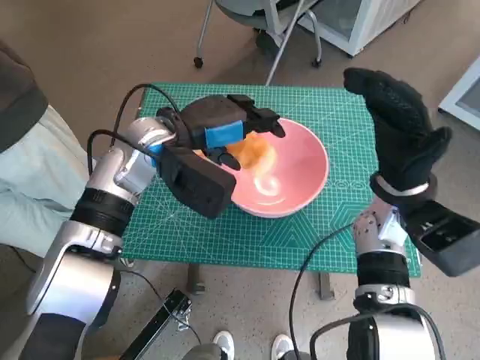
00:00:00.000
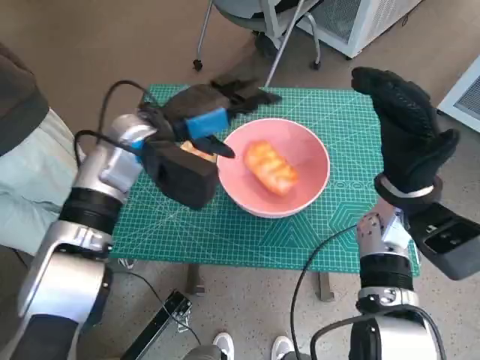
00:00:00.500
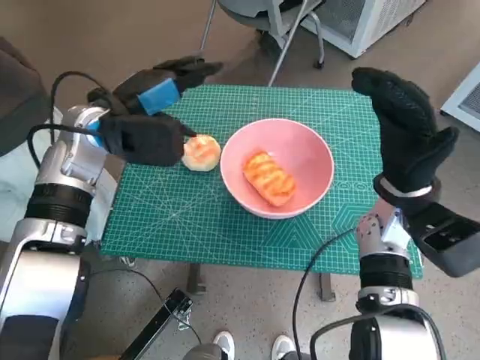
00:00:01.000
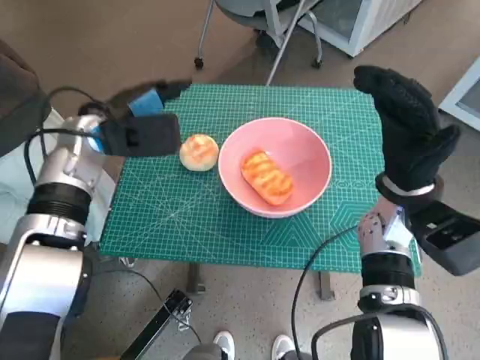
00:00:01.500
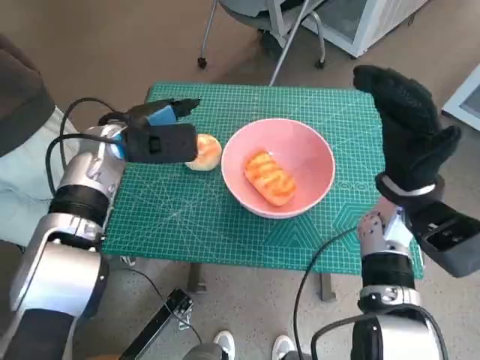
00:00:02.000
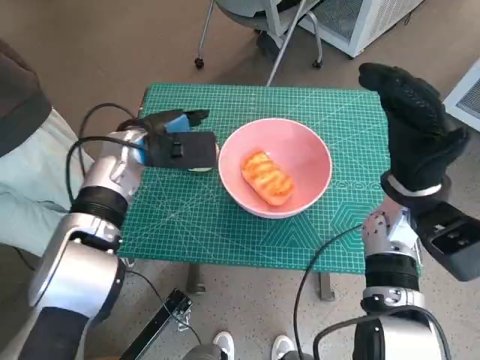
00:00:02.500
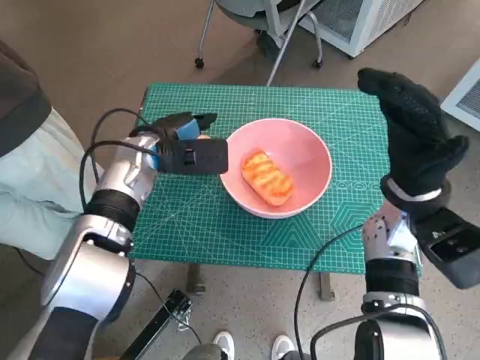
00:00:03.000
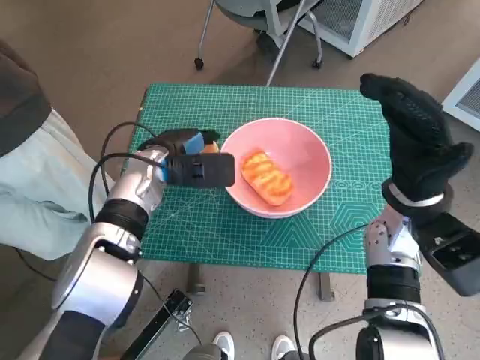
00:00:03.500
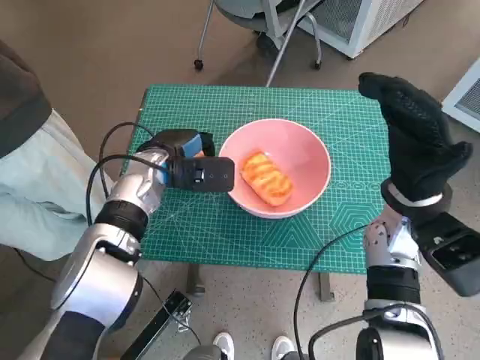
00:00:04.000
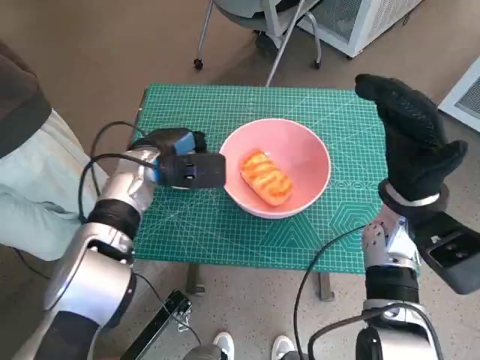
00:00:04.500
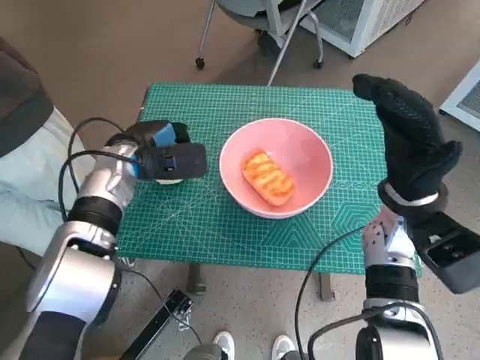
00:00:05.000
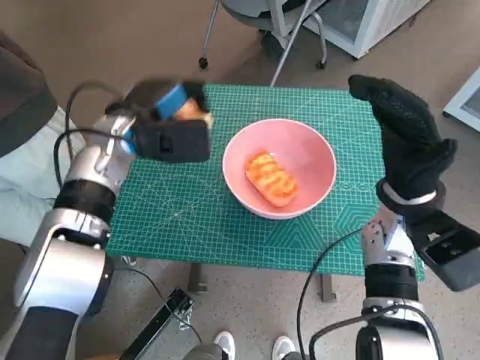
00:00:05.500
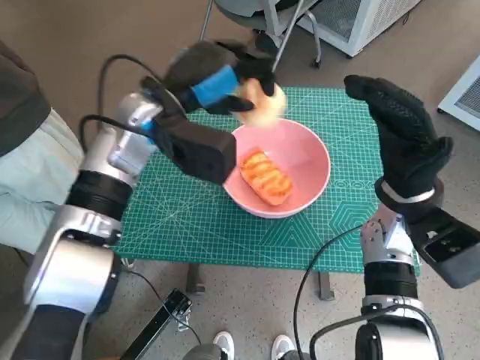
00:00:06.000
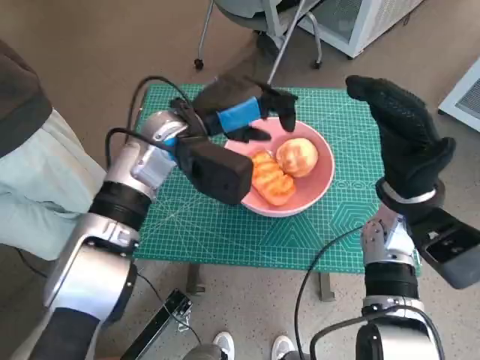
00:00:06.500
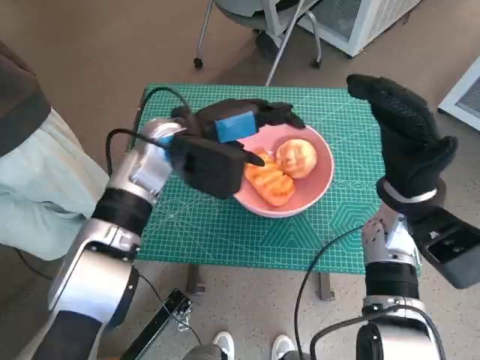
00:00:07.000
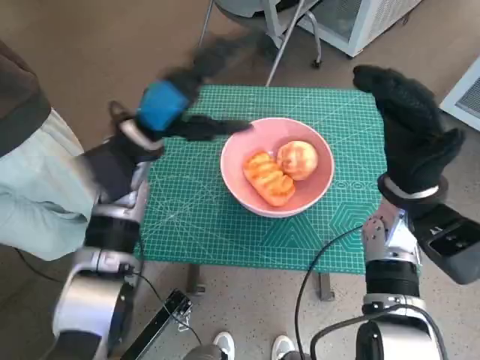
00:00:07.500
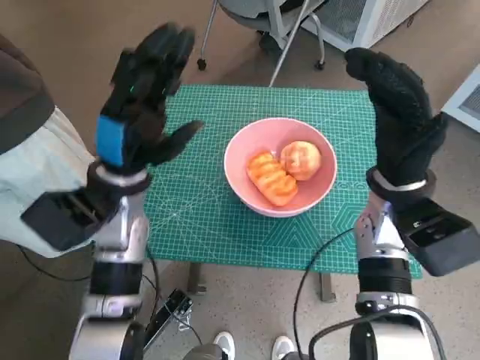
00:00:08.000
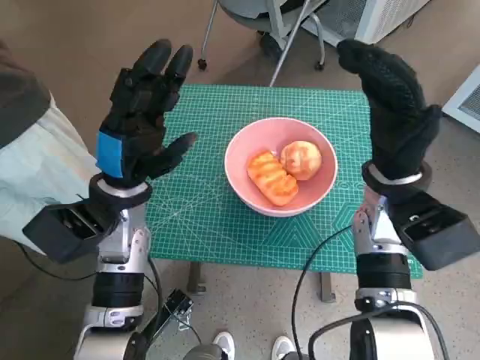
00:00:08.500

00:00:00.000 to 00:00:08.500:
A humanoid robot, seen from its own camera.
Task of the whole recording: Push the bowl to the center of the table and put the bread into the bowl.
Step, 00:00:00.500 to 00:00:04.000: Grasp the round bread with left hand.
Step, 00:00:04.500 to 00:00:06.000: Place the round bread in pink bowl with left hand.
00:00:00.000 to 00:00:02.000: The left hand moves to the left, roughly 5 cm.
00:00:02.000 to 00:00:04.000: The left hand shifts roughly 5 cm downward.
00:00:04.000 to 00:00:06.500: The left hand goes about 10 cm upward and to the right.
00:00:06.500 to 00:00:08.500: The left hand travels to the left, backward and downward by about 10 cm.

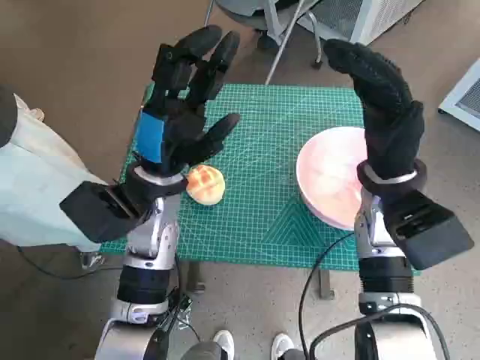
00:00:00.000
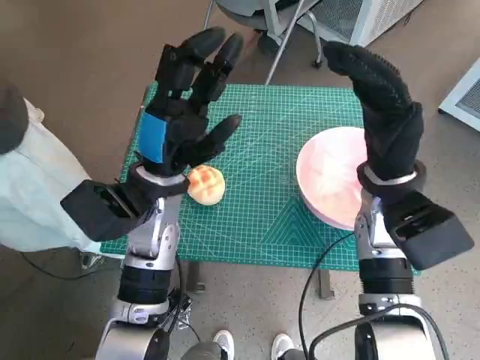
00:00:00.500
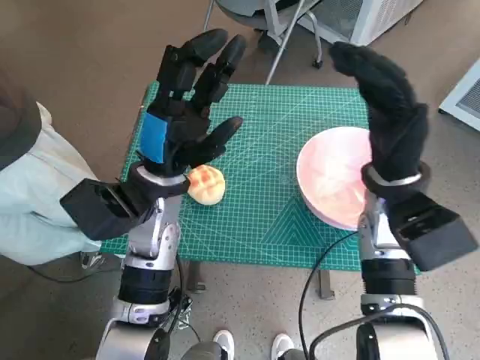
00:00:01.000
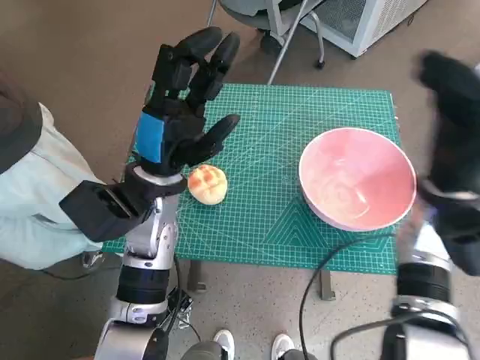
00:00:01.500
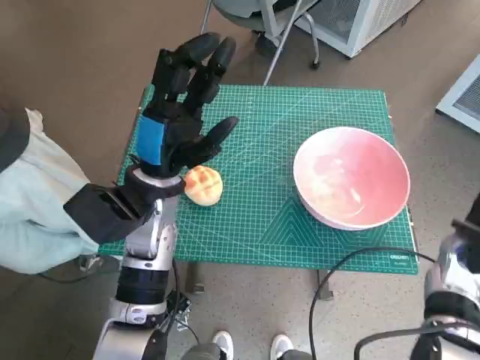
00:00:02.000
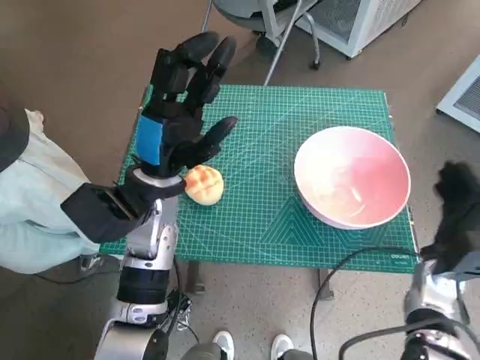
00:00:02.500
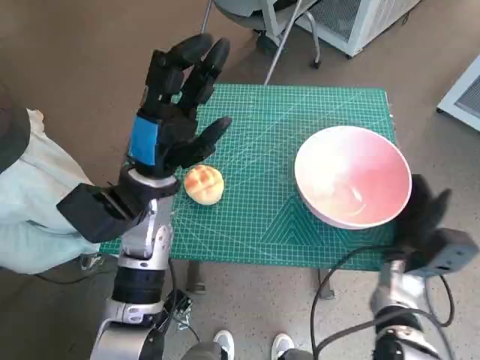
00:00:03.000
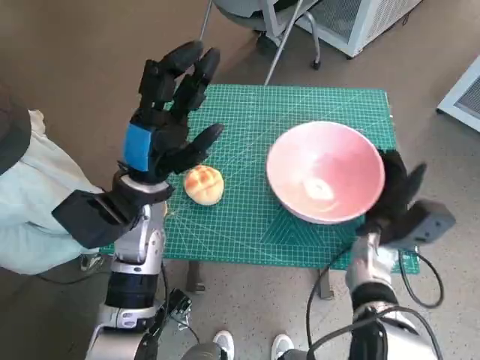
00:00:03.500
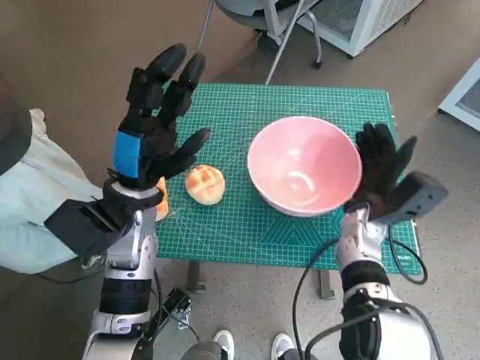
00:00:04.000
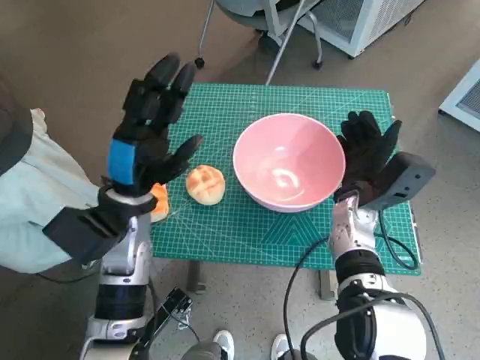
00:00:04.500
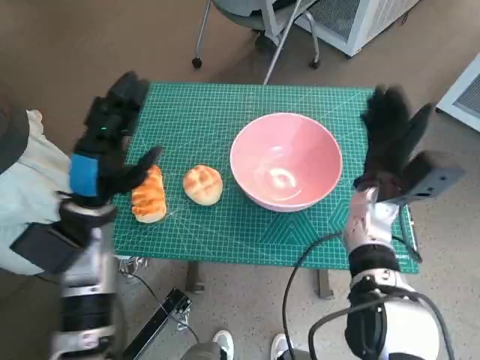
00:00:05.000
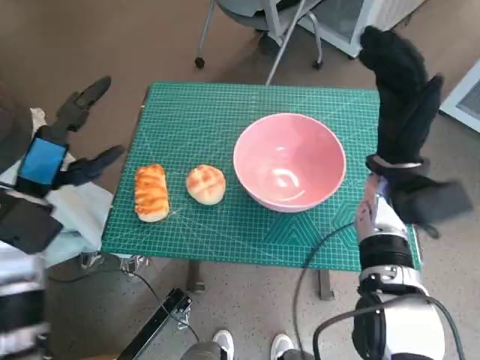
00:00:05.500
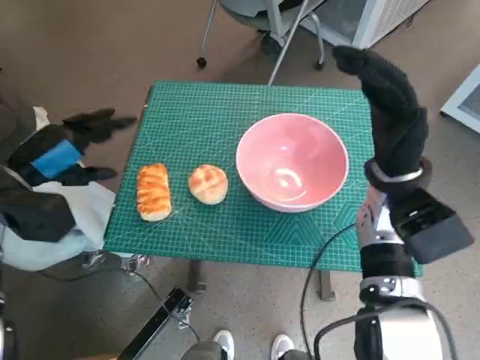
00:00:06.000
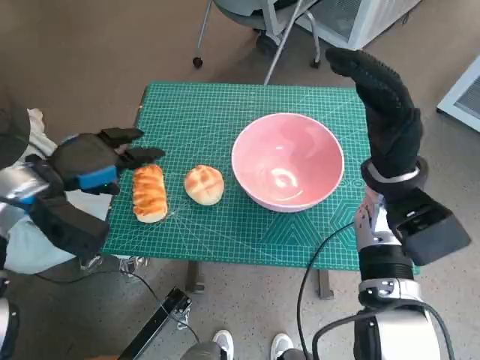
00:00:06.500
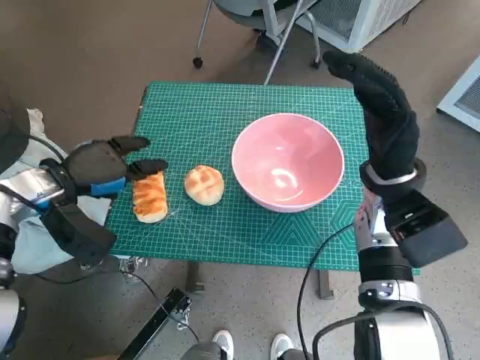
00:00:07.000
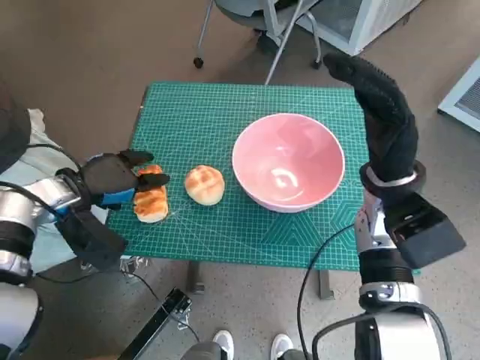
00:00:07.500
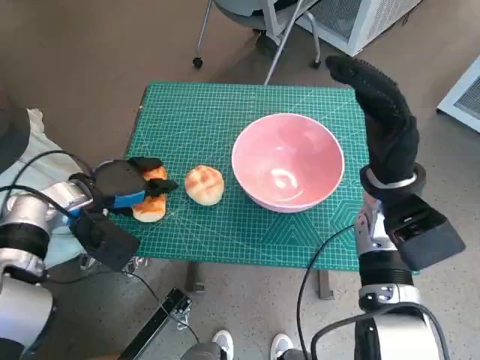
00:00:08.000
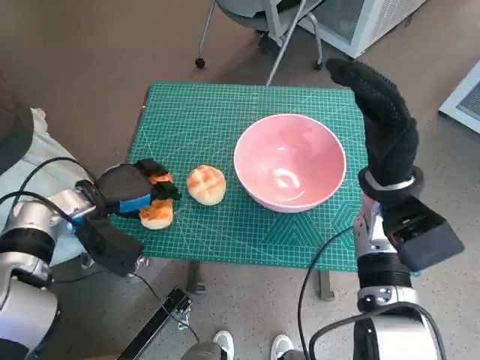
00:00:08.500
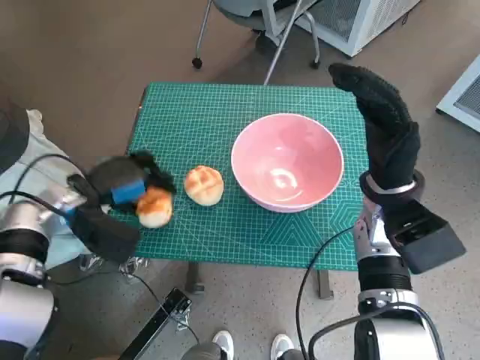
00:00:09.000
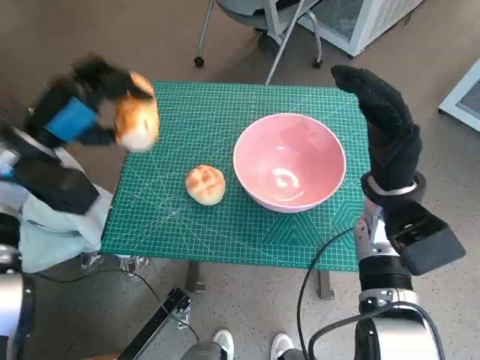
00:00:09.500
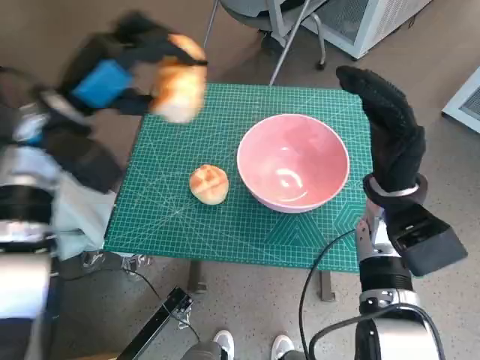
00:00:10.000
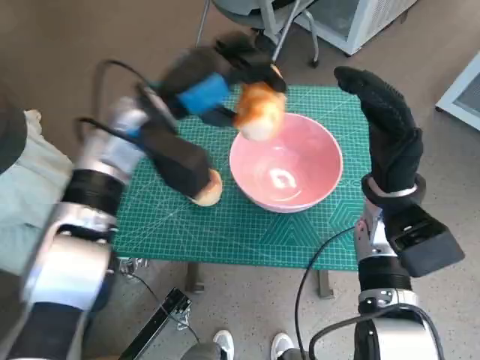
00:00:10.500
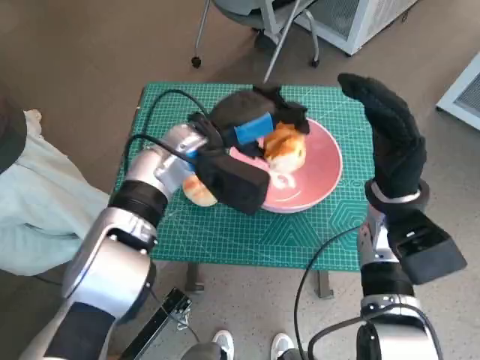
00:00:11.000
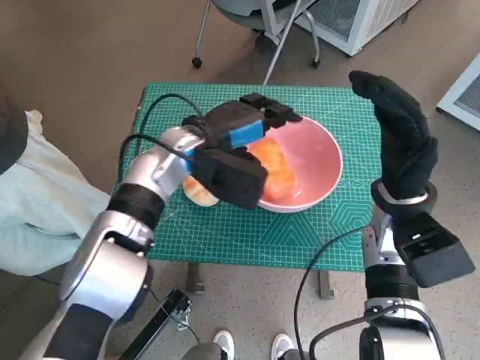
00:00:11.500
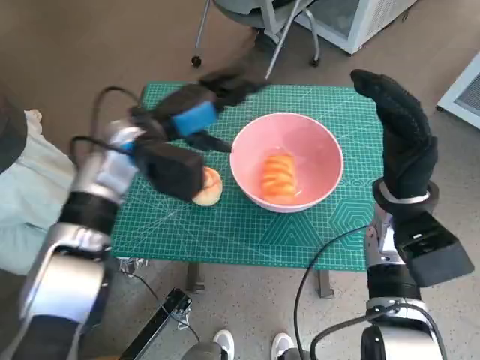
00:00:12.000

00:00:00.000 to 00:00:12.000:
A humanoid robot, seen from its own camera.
Task of the whole recording: Push the bowl to the center of the table and put the bread into the bowl.
Step, 00:00:00.000 to 00:00:04.500: Move the pink bowl to the center of table with right hand.
Step, 00:00:05.000 to 00:00:08.500: Grasp the long bread with left hand.
Step, 00:00:09.000 to 00:00:11.000: Place the long bread in pink bowl with left hand.
00:00:02.000 to 00:00:04.000: The right hand is displaced to the left by some 10 cm.
00:00:04.000 to 00:00:06.000: The left hand is displaced to the left by approximately 15 cm, while the right hand shifts about 10 cm upward.
00:00:06.000 to 00:00:08.000: The left hand goes about 5 cm downward.
00:00:08.000 to 00:00:10.000: The left hand travels upward by roughly 10 cm.
00:00:10.000 to 00:00:12.000: The left hand shifts some 10 cm to the right.

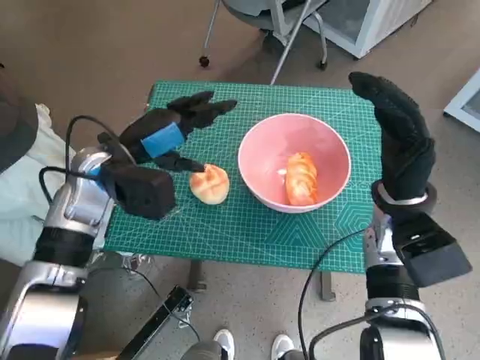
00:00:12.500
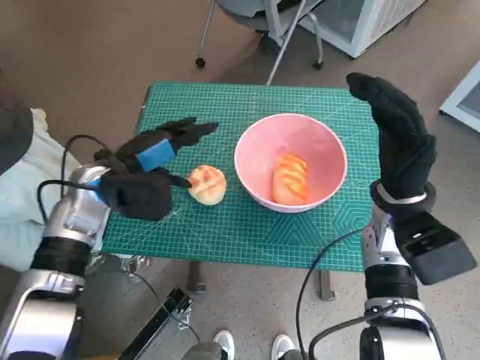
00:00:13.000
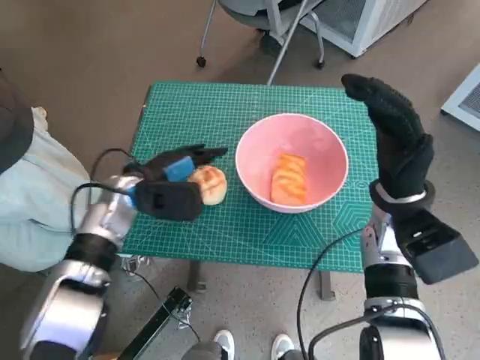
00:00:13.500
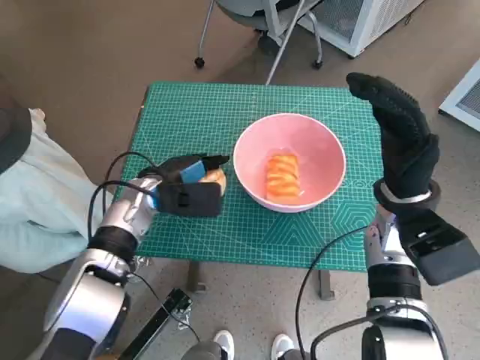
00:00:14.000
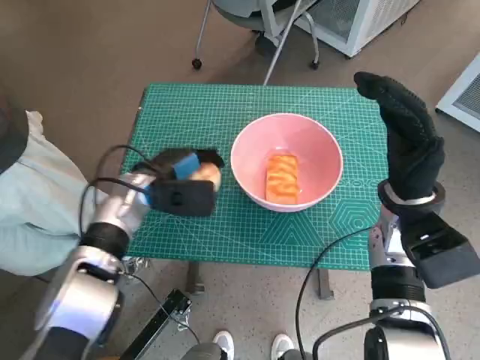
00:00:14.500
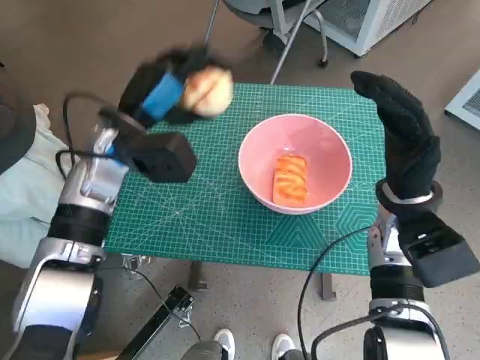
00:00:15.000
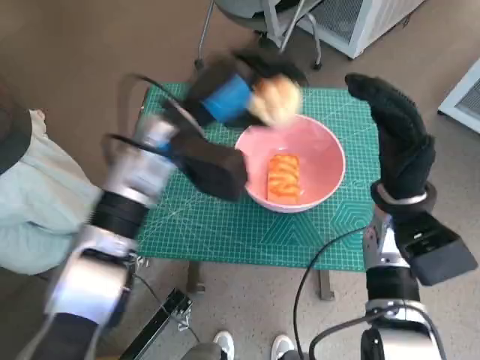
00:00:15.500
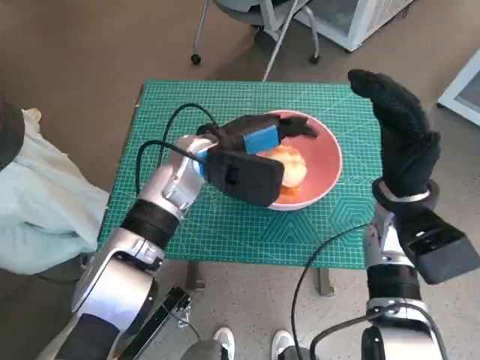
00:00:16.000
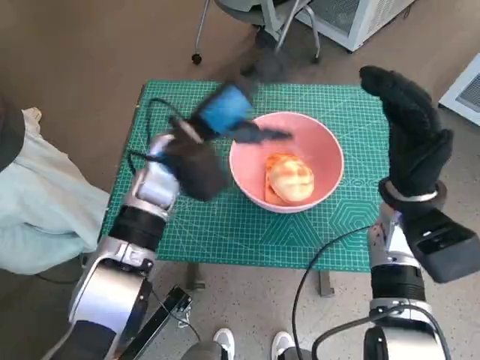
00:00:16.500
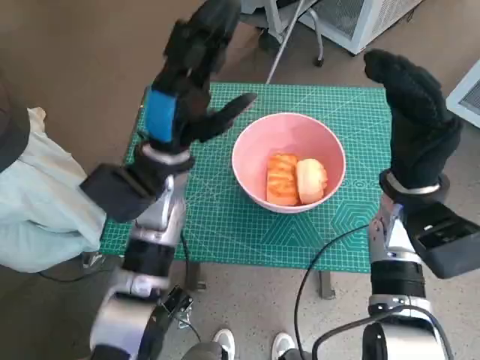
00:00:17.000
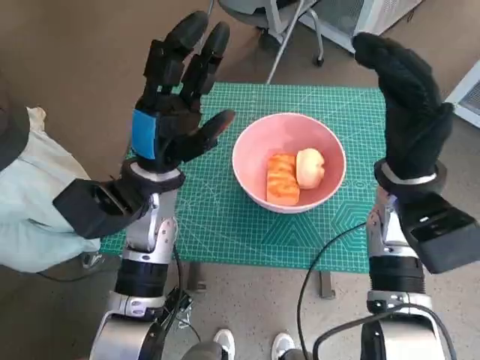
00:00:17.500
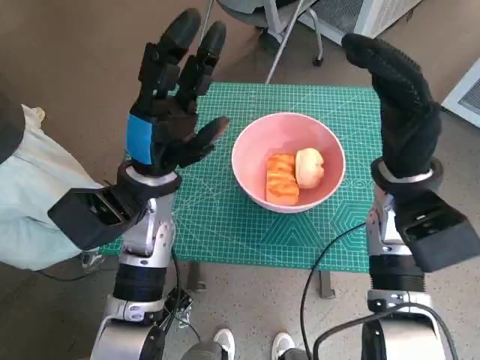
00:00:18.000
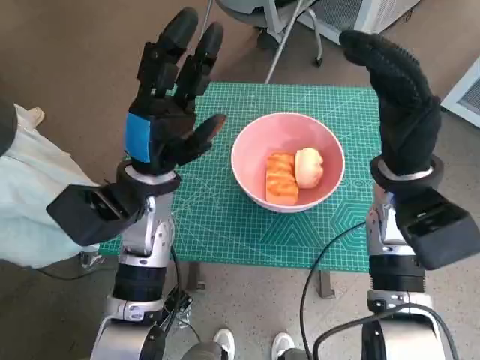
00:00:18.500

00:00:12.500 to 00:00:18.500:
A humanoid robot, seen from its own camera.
Task of the whole recording: Push the bowl to the center of the table and put the bread into the bowl.
Step, 00:00:12.500 to 00:00:14.000: Grasp the round bread with left hand.
Step, 00:00:14.500 to 00:00:15.500: Place the round bread in pink bowl with left hand.
00:00:12.500 to 00:00:14.500: The left hand shifts approximately 10 cm downward.
00:00:14.500 to 00:00:16.500: The left hand goes approximately 10 cm upward and to the right.
00:00:16.500 to 00:00:18.500: The left hand moves about 5 cm.
